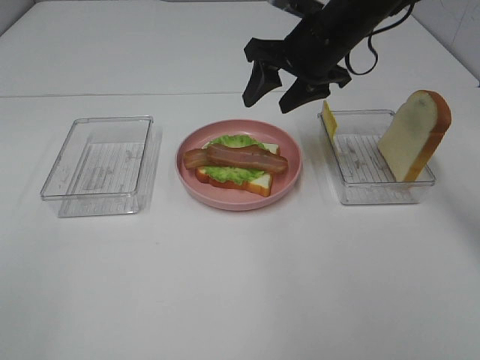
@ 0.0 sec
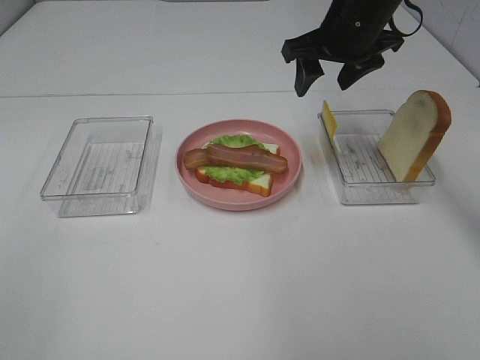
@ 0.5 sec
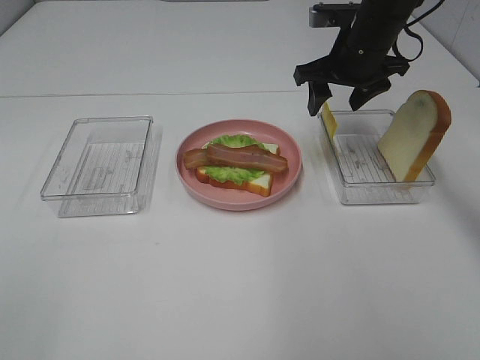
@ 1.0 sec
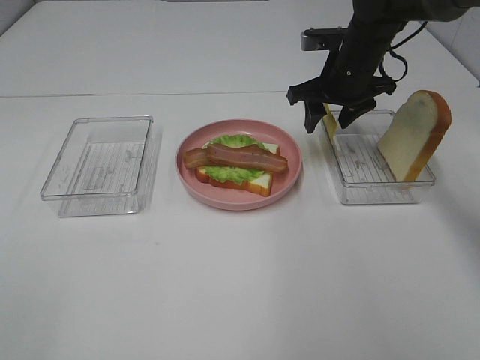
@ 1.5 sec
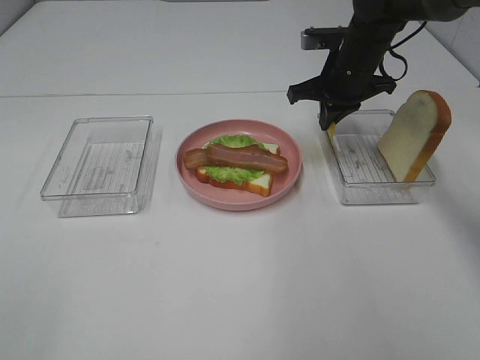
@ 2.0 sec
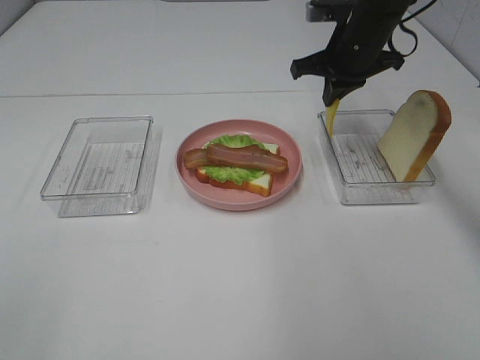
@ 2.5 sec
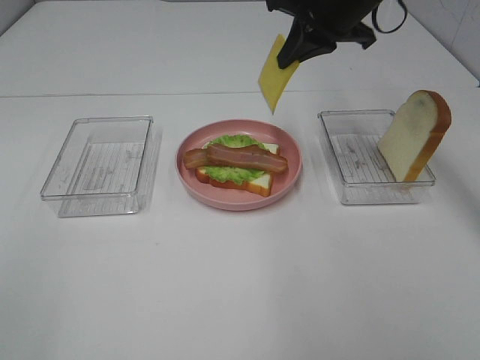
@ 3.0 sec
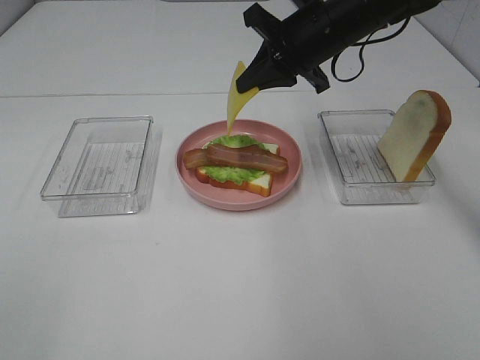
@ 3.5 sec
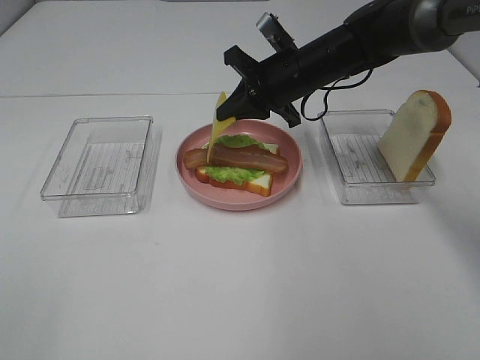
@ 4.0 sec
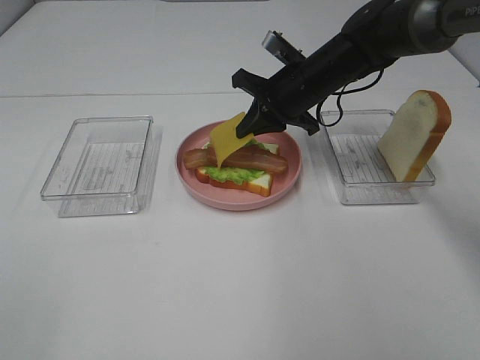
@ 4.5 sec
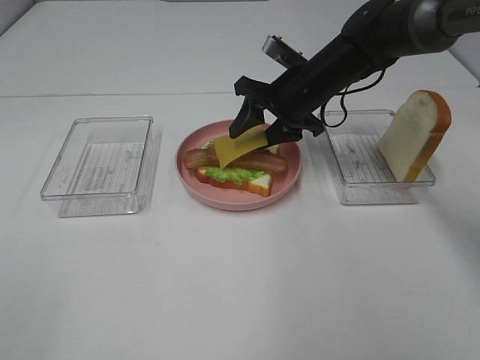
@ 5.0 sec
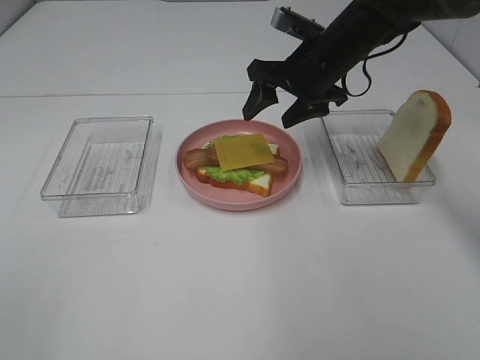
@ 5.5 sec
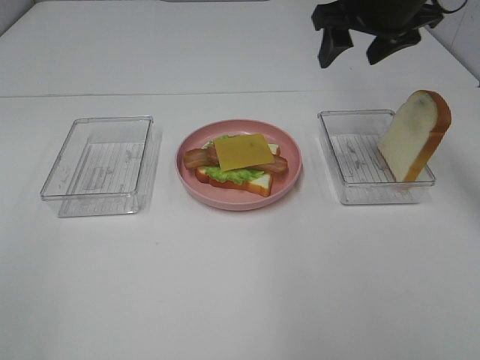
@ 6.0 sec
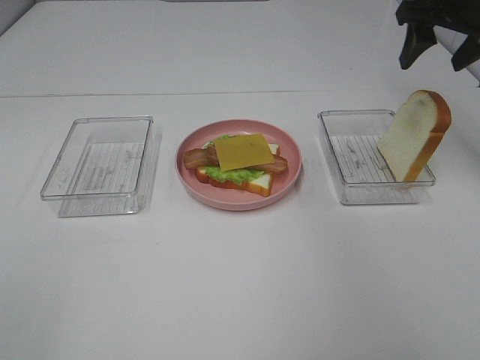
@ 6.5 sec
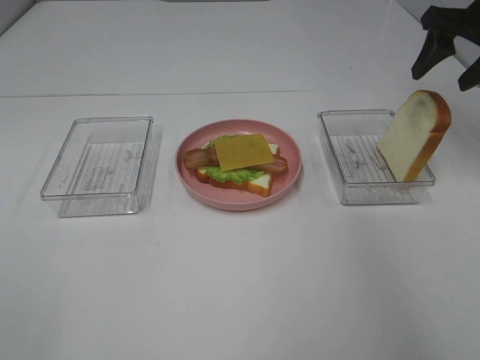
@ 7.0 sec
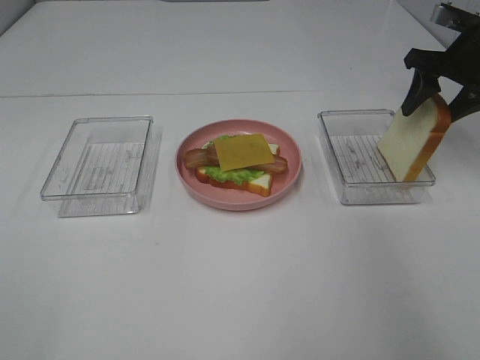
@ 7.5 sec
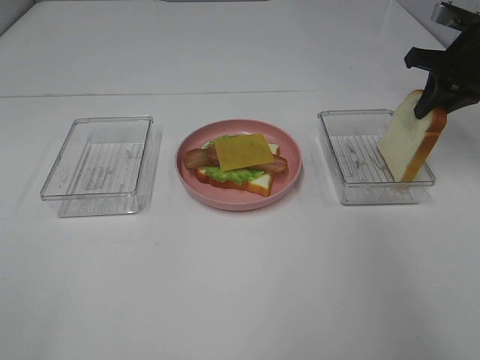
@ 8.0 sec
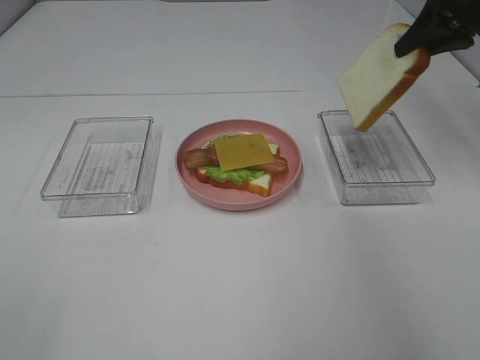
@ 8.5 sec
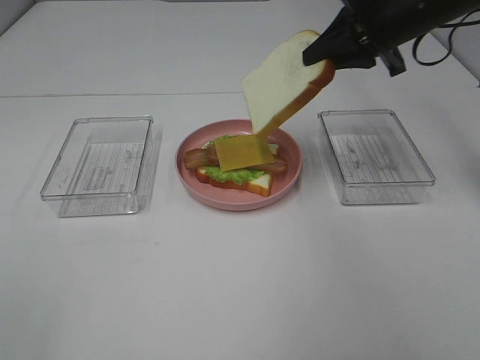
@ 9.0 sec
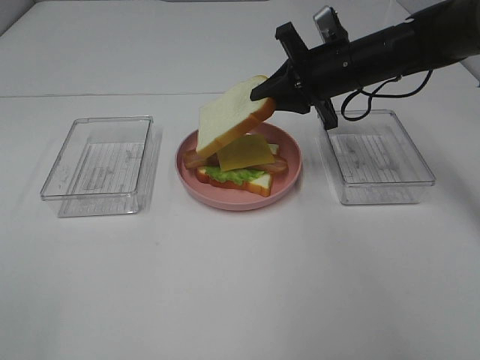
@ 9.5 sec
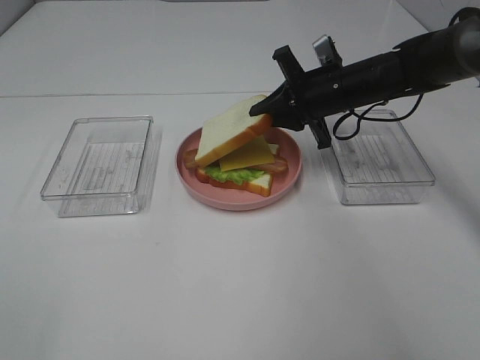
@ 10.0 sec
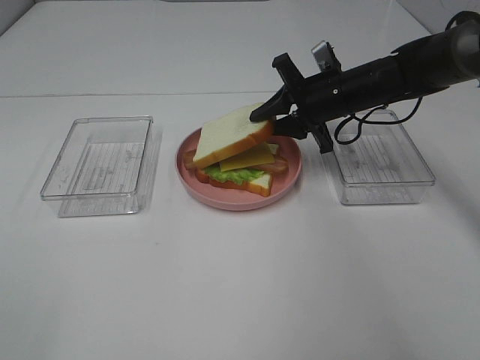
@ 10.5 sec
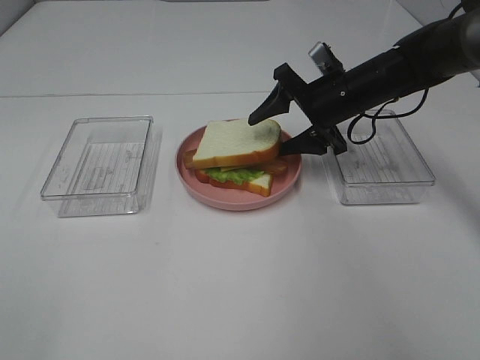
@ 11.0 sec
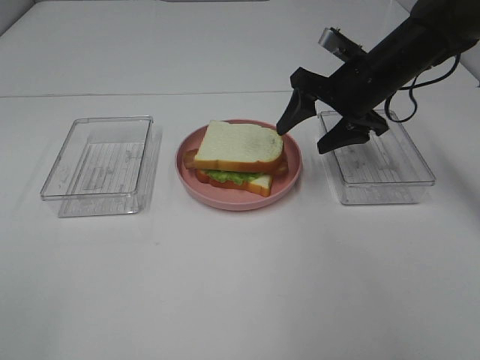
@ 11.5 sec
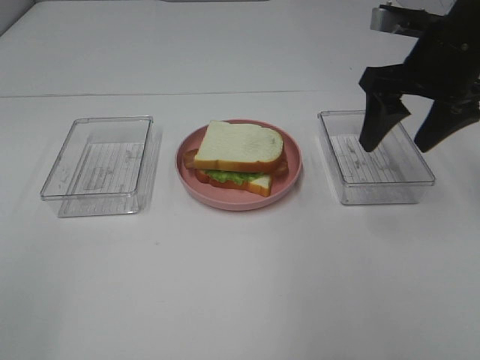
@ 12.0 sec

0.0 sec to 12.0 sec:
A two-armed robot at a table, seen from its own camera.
Task of the whole recording: Make sandwiches.
Step, 0.0 sec to 2.0 sec: Right hand:grab the cheese slice.
Step, 2.5 sec to 5.0 sec: Right hand:place the cheese slice on top of the bacon.
Step, 5.5 sec to 7.5 sec: Right hand:grab the bread slice.
Step, 8.0 sec to 11.0 sec: Right hand:place the bread slice on the cheese slice.
0.0 sec to 2.0 sec: The right gripper shifts roughly 5 cm downward, and closes up.
2.0 sec to 4.0 sec: The right gripper moves to the left, roughly 5 cm, and goes upward and returns, some 10 cm each way.
4.0 sec to 6.0 sec: The right gripper travels upward and to the right by approximately 15 cm, and opens up.
6.0 sec to 8.0 sec: The right gripper goes some 15 cm to the right and downward, and closes.
8.0 sec to 10.0 sec: The right gripper heads to the left and downward, covering roughly 20 cm.
10.0 sec to 12.0 sec: The right gripper heads upward, backward and to the right, covering approximately 15 cm, and opens its fingers.

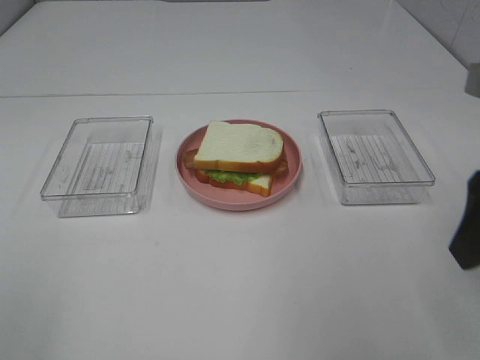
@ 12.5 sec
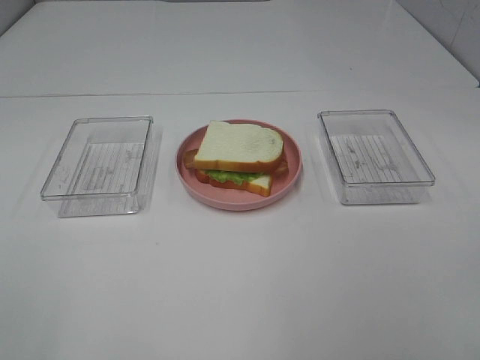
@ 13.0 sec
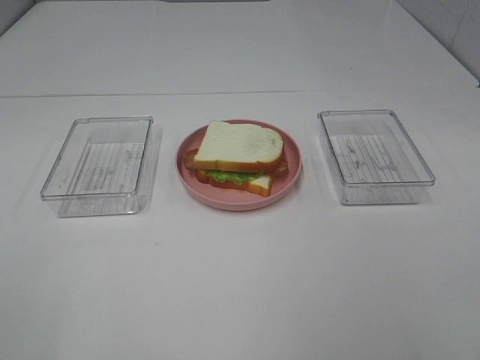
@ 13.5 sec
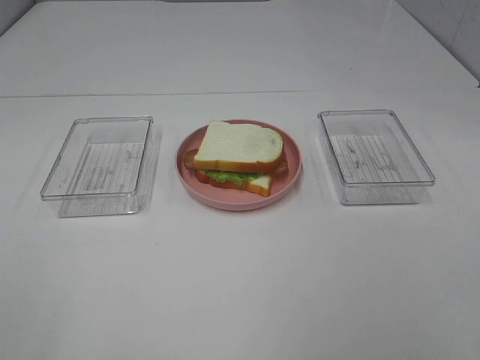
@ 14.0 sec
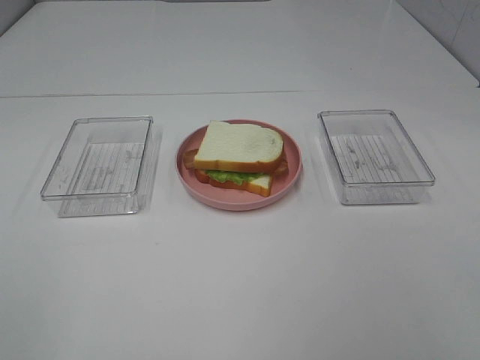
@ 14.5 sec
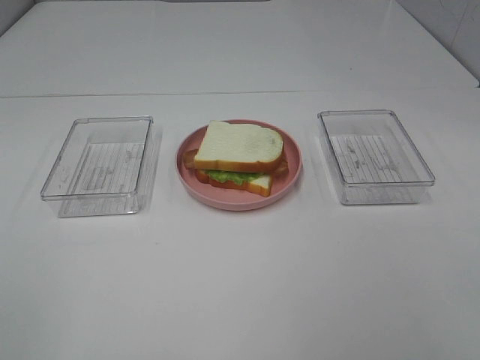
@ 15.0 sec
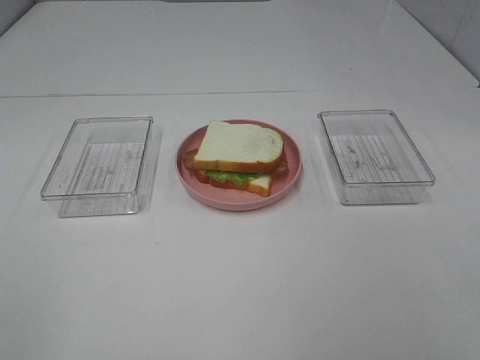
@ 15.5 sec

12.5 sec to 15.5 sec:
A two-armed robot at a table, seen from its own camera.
Task of the whole recording: Make sandwiches.
12.5 sec to 14.0 sec: The right gripper goes approximately 15 cm backward.

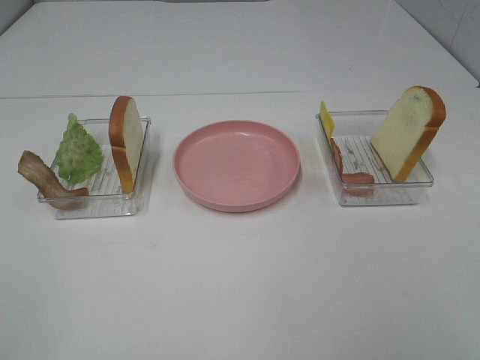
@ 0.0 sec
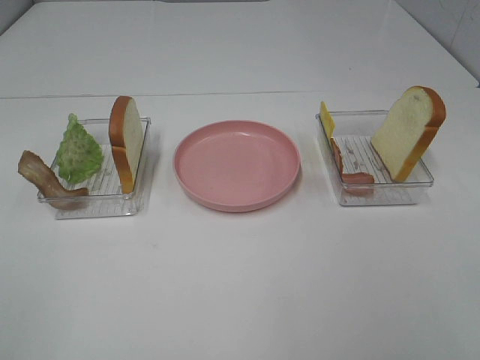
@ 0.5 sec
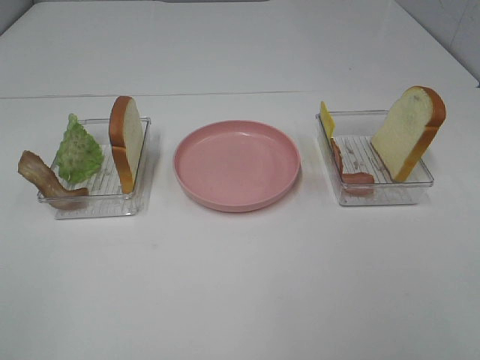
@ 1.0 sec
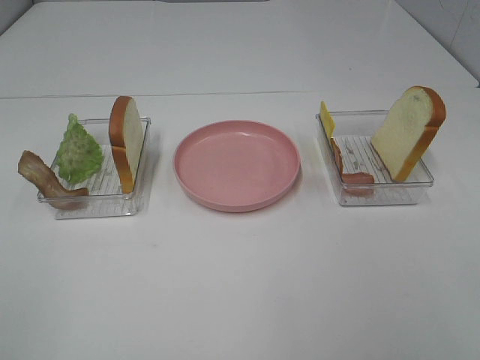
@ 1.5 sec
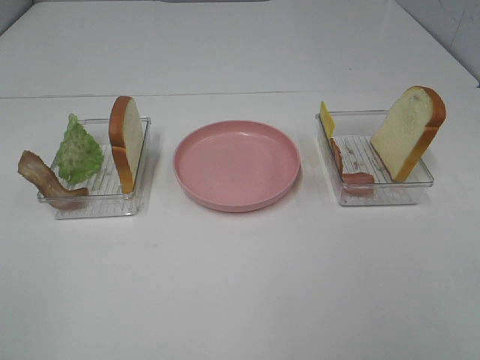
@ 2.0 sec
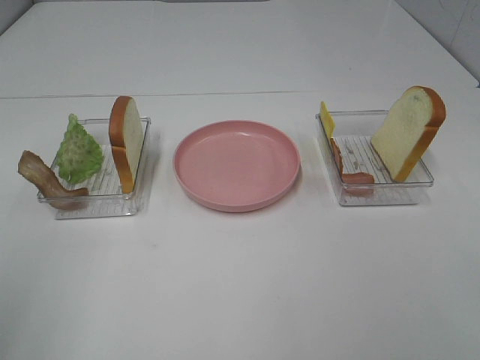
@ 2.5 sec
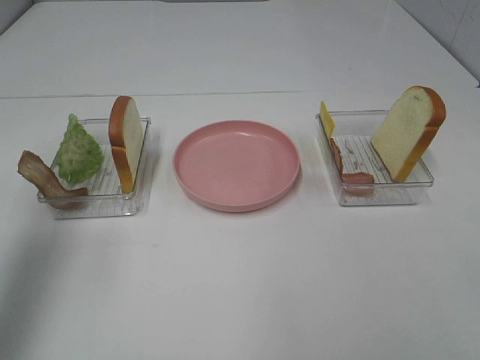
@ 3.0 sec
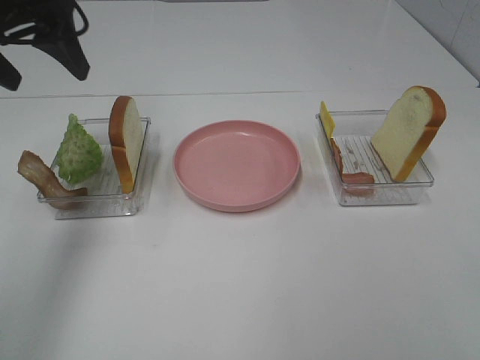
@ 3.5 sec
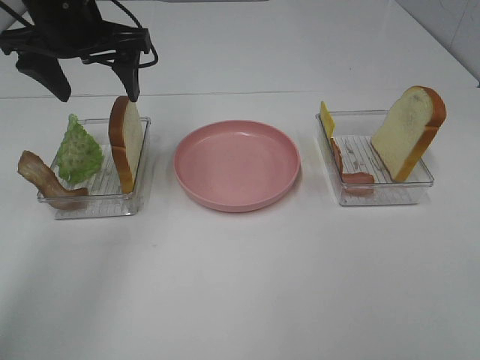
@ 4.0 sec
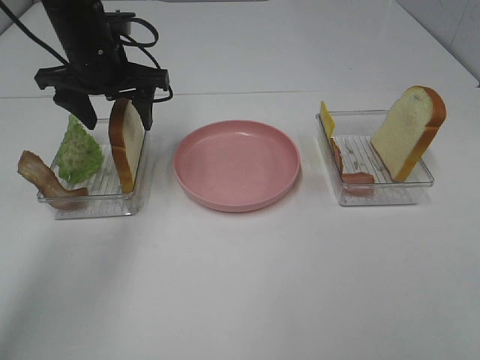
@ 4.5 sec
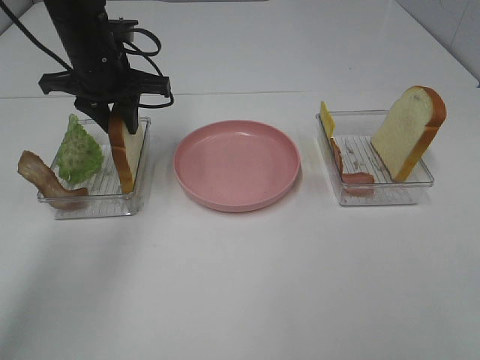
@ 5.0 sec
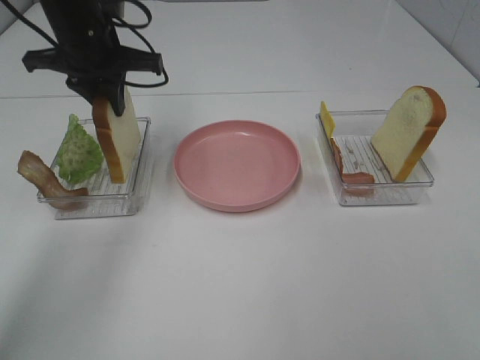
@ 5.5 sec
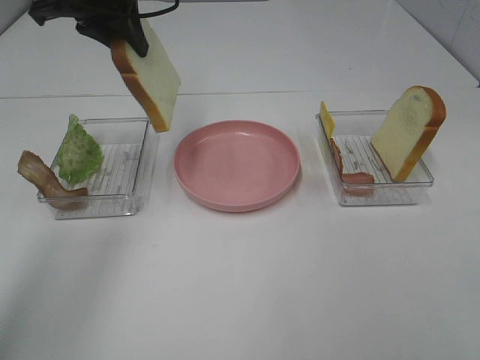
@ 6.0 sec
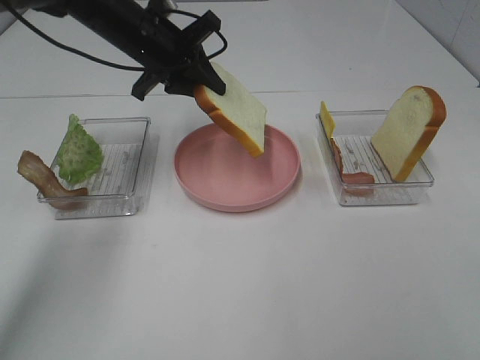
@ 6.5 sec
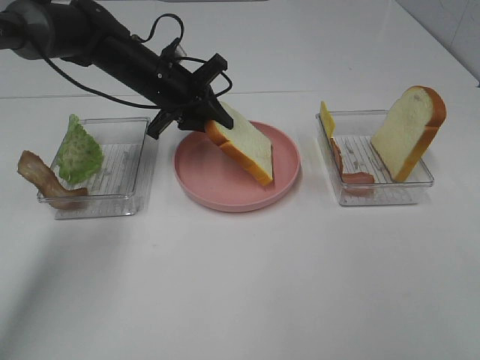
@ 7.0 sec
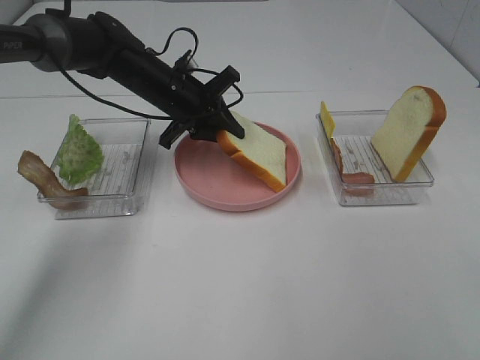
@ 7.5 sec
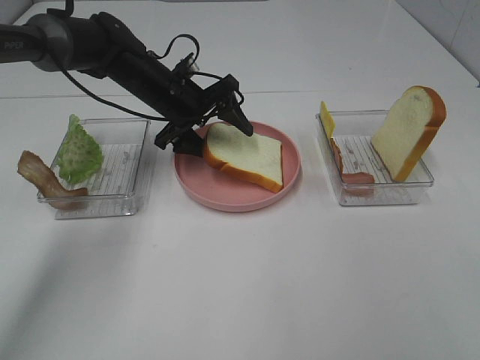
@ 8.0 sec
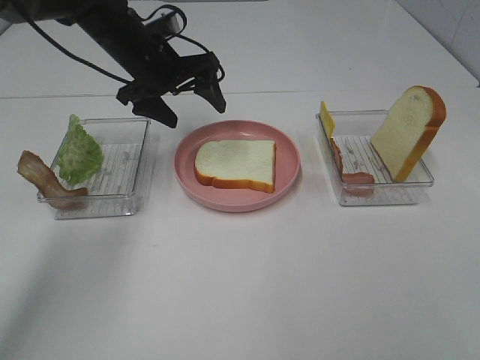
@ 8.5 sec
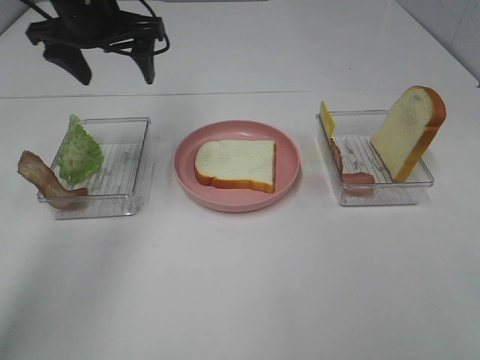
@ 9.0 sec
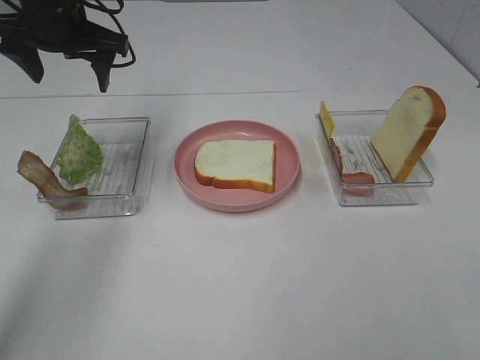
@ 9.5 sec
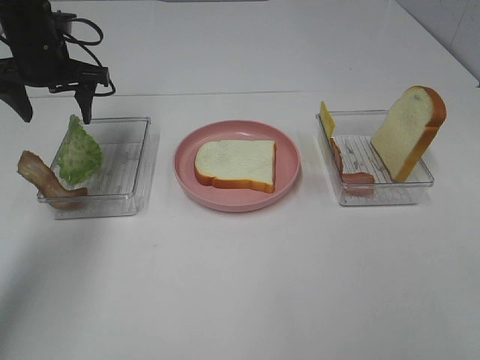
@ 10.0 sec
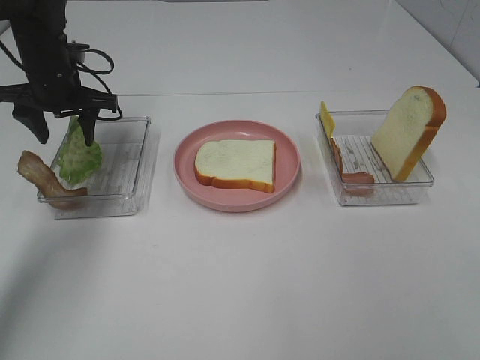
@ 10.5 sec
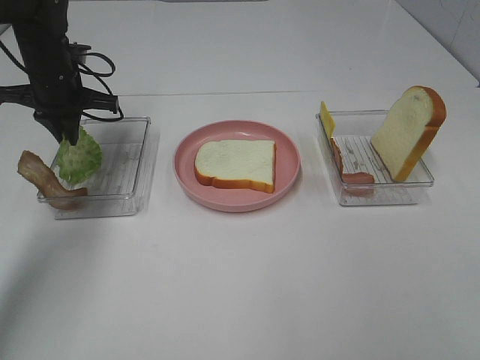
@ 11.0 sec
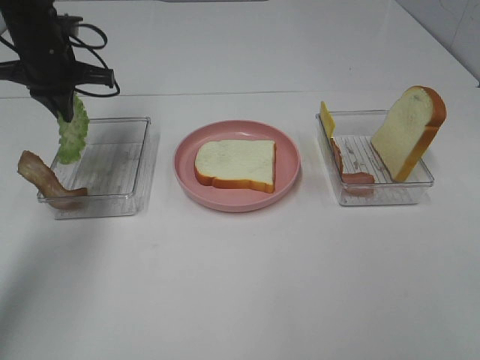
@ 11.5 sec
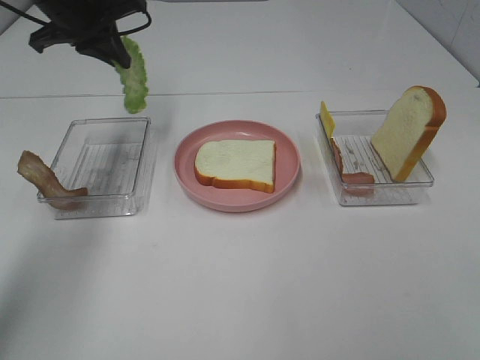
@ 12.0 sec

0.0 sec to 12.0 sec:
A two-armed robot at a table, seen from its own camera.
Task of the whole recording: Make sandwiches.
Step, 0.0 sec to 5.5 sec: Left hand:grab the bread slice.
Step, 6.0 sec to 8.0 sec: Left hand:place the bread slice on the plate.
Step, 8.5 sec to 11.0 sec: Left hand:grab the lettuce slice.
0.0 sec to 2.0 sec: The two grippers keep their place.
2.0 sec to 4.0 sec: The left gripper travels forward by some 40 cm.
4.0 sec to 6.0 sec: The left gripper moves roughly 5 cm downward and comes back, and closes up.
6.0 sec to 8.0 sec: The left gripper shifts some 20 cm downward, and opens its fingers.
8.0 sec to 10.0 sec: The left gripper goes roughly 15 cm to the left and upward.
10.0 sec to 12.0 sec: The left gripper is displaced upward by approximately 5 cm, and closes up.
